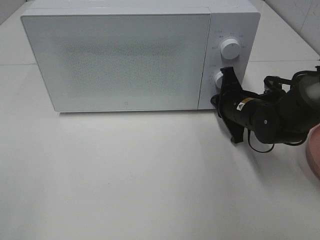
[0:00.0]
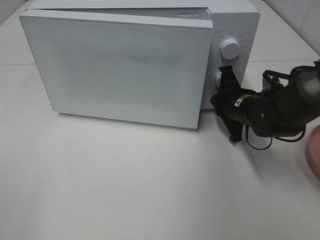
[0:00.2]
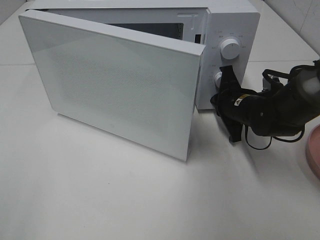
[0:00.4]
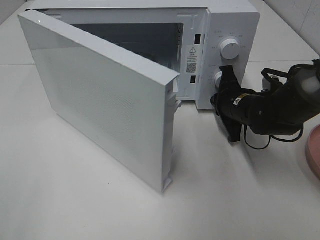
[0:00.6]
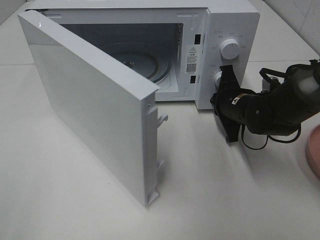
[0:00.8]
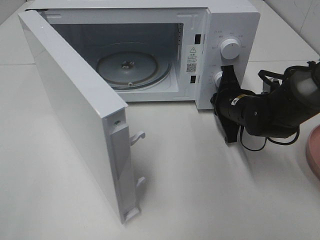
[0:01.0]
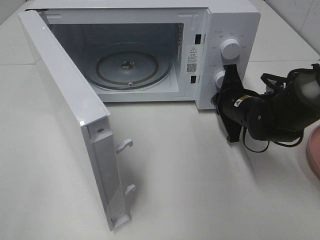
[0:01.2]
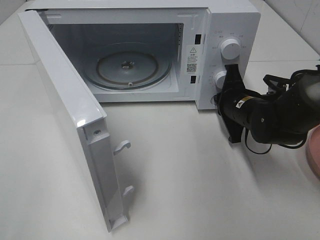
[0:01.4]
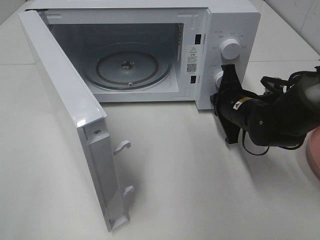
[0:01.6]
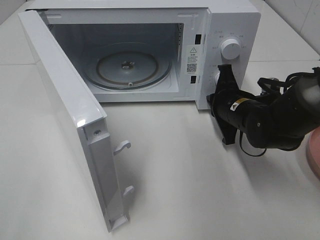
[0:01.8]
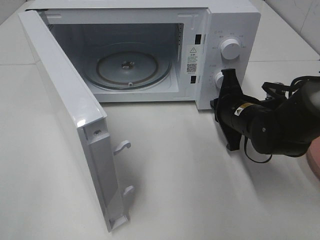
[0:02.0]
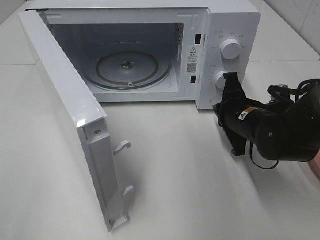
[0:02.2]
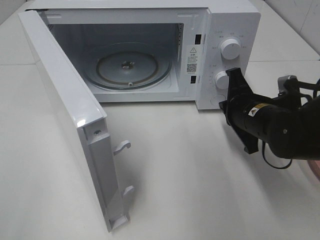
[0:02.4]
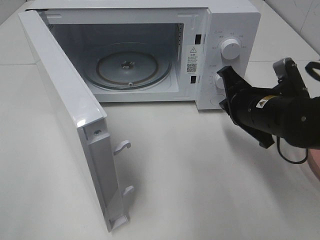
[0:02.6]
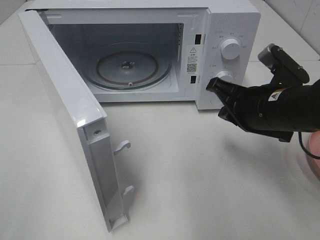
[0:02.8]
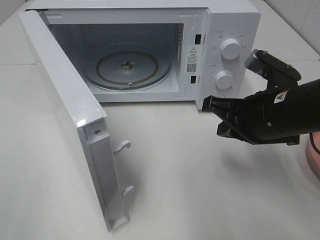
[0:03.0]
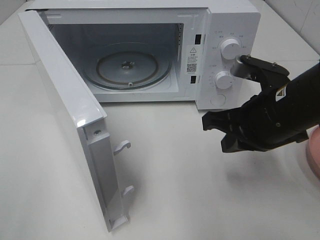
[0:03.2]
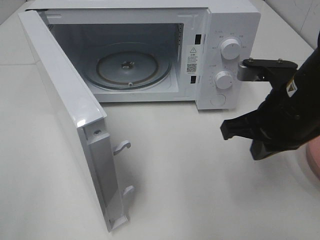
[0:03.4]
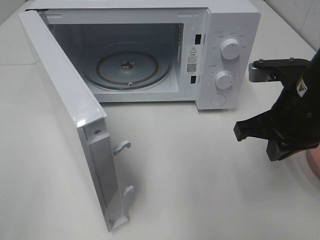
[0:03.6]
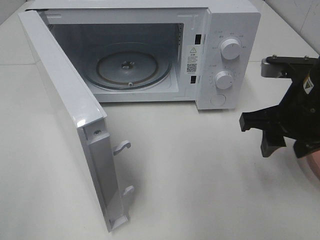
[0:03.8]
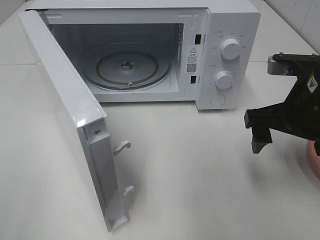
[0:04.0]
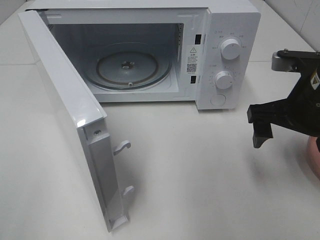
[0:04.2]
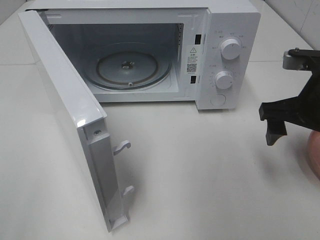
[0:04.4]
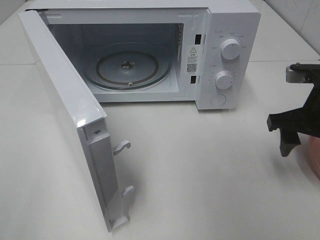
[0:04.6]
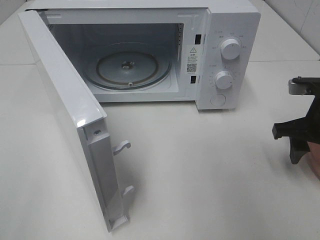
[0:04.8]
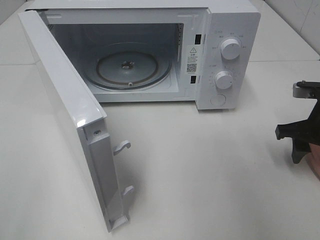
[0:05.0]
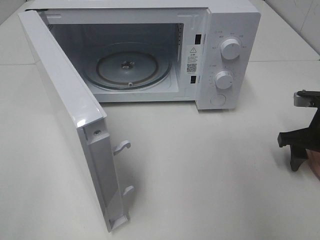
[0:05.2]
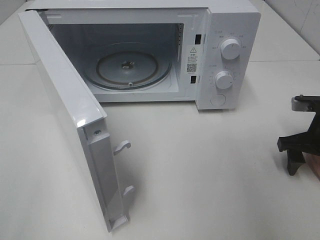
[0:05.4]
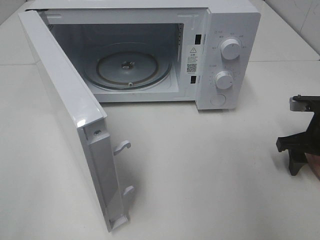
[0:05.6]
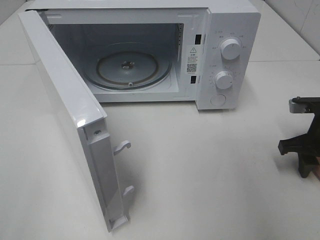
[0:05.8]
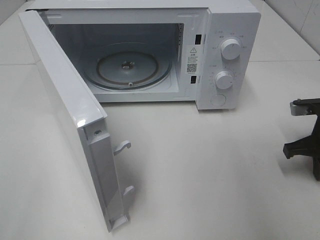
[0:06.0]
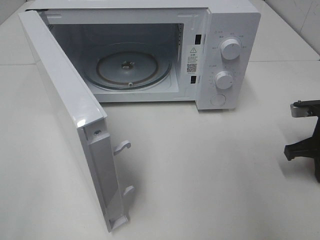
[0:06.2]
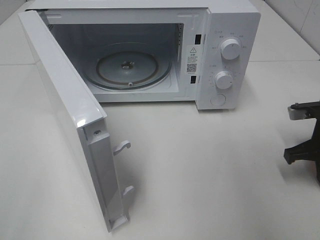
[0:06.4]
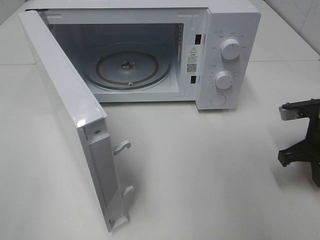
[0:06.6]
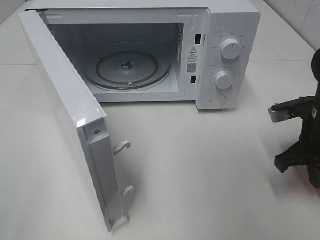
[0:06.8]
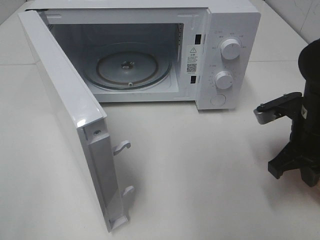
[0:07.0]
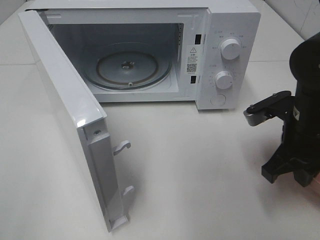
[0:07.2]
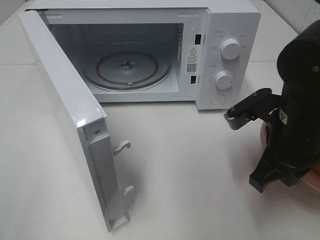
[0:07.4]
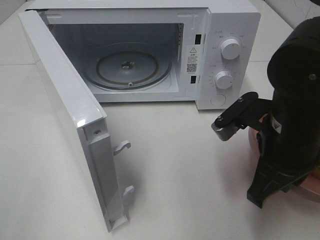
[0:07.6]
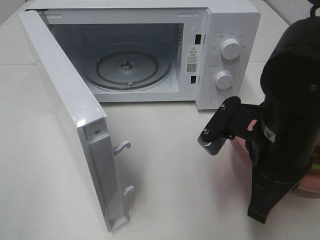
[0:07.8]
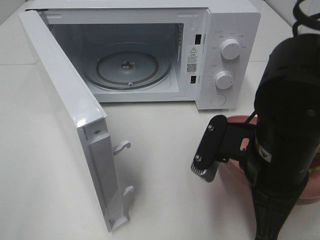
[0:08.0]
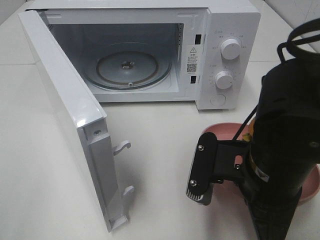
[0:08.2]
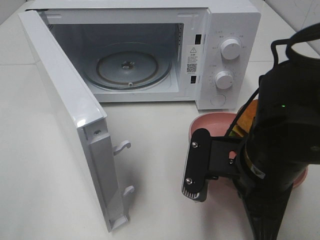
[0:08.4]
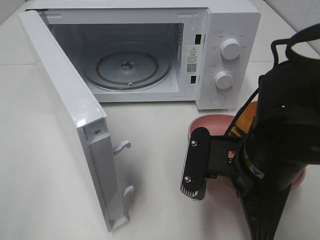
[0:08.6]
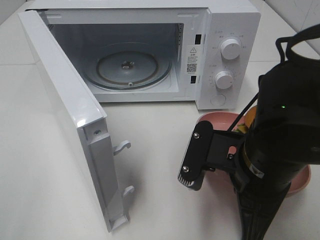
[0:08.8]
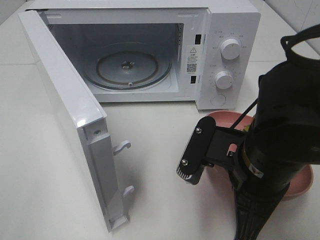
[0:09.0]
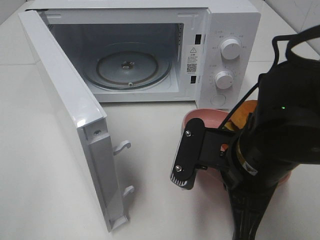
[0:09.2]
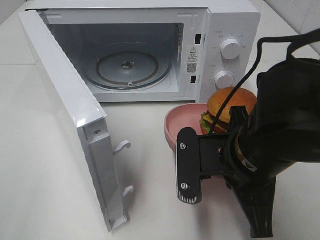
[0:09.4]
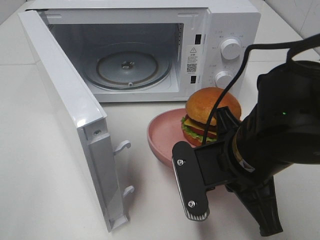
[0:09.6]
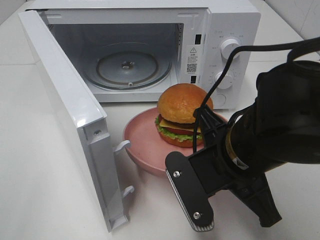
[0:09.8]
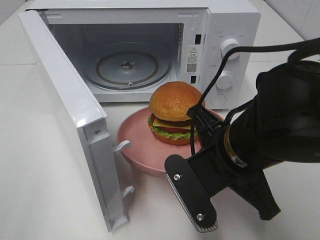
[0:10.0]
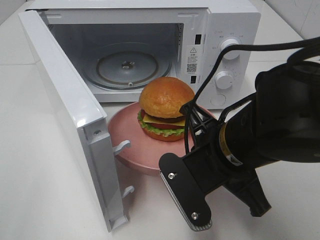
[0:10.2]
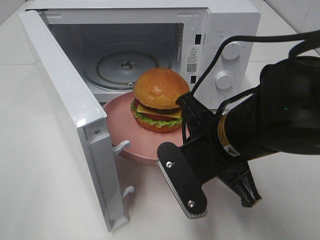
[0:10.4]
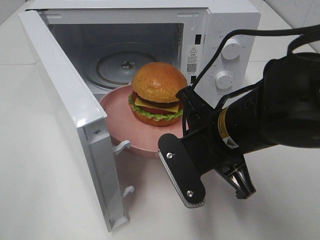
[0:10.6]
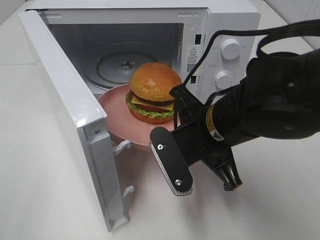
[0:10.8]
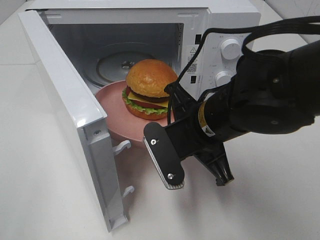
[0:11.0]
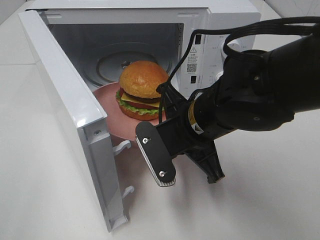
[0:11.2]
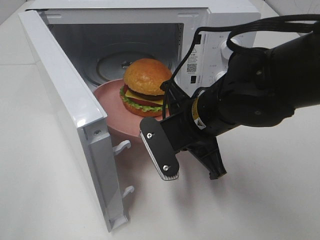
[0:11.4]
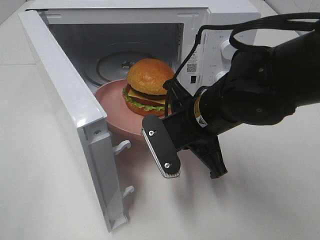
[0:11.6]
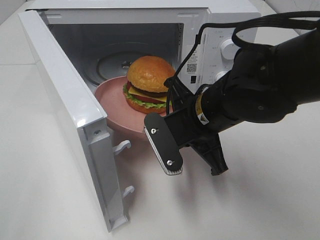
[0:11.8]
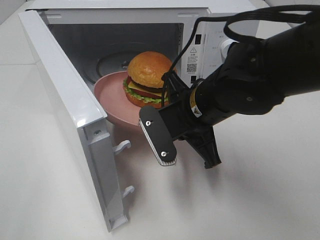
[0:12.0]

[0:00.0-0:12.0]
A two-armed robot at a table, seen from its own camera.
Task of the whole recording: Heat the burger.
Step, 0:01.8 to 0:06.2: Right hand: grab the plate with the hamburger.
0:01.6 to 0:03.0: The right gripper travels backward and upward by roughly 15 cm.
0:03.0 to 0:04.4: The right gripper travels to the right by some 5 cm, and opens up.
0:04.4 to 0:06.0: The right gripper heads downward and to the right, covering roughly 10 cm, and closes.
0:06.0 to 0:07.6: The right gripper heads to the left, backward and upward, covering approximately 20 cm.
0:07.6 to 0:09.0: The right gripper ends up about 5 cm from where it was.
0:10.4 to 0:12.0: The right gripper travels forward by approximately 5 cm.

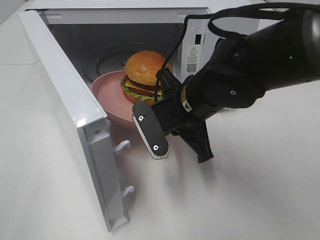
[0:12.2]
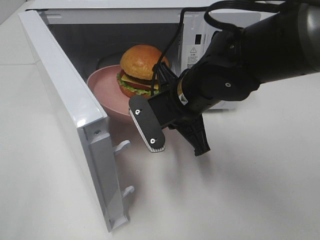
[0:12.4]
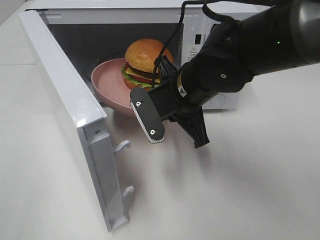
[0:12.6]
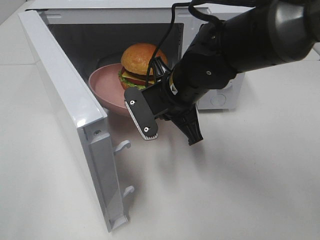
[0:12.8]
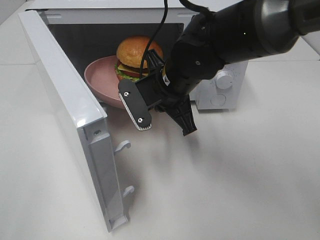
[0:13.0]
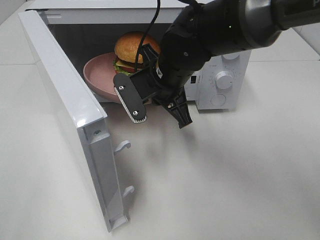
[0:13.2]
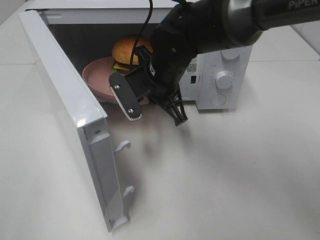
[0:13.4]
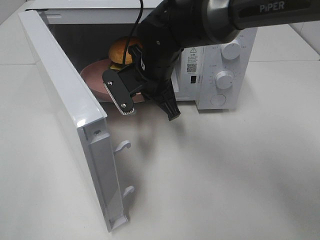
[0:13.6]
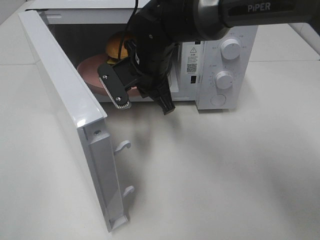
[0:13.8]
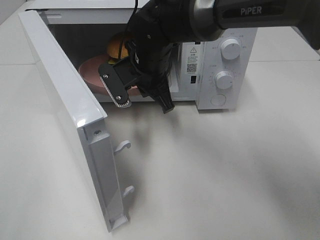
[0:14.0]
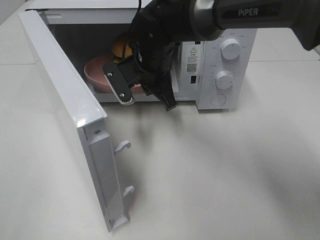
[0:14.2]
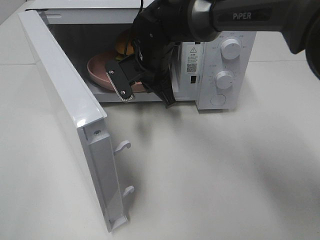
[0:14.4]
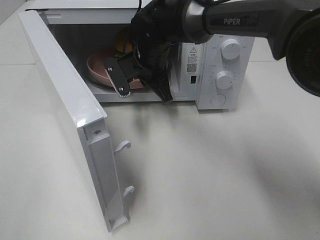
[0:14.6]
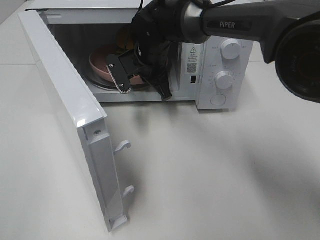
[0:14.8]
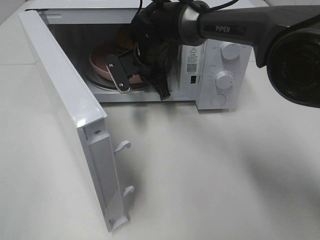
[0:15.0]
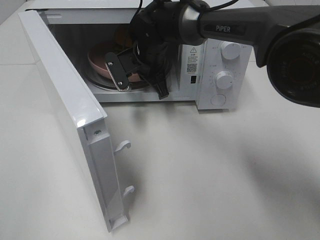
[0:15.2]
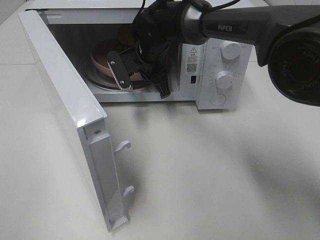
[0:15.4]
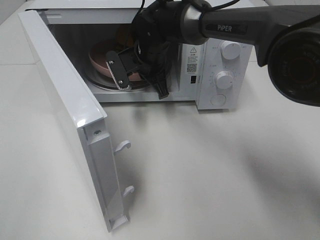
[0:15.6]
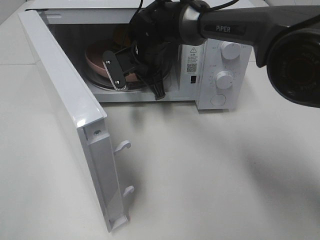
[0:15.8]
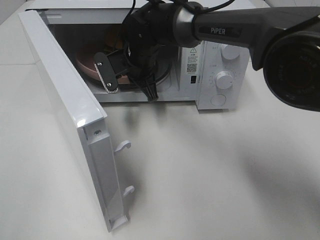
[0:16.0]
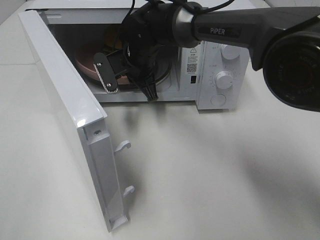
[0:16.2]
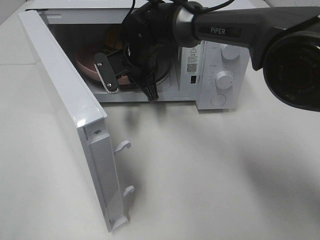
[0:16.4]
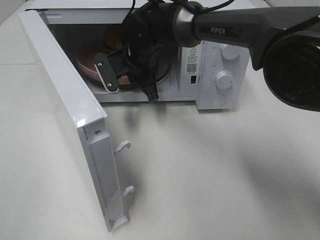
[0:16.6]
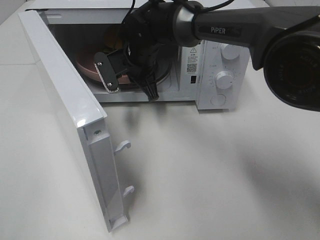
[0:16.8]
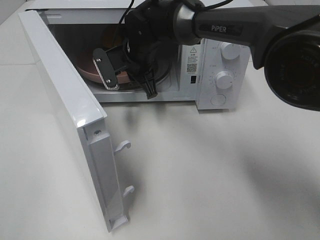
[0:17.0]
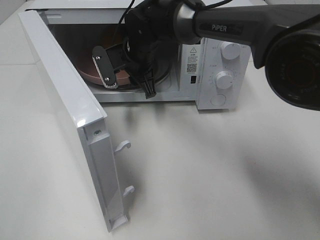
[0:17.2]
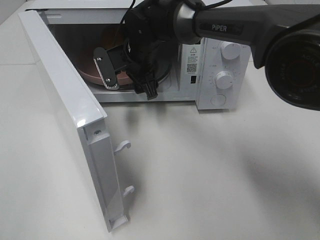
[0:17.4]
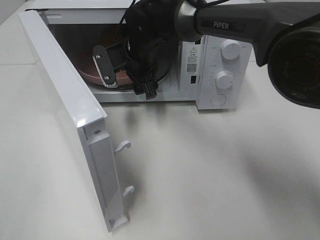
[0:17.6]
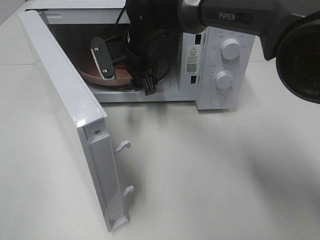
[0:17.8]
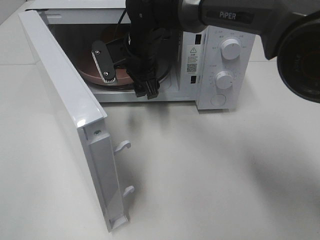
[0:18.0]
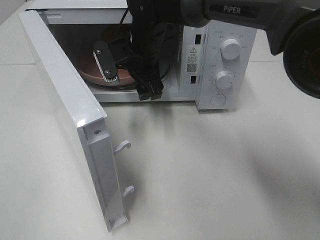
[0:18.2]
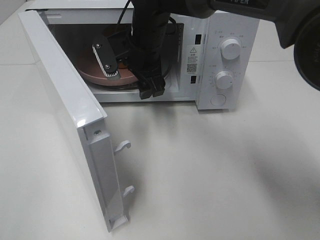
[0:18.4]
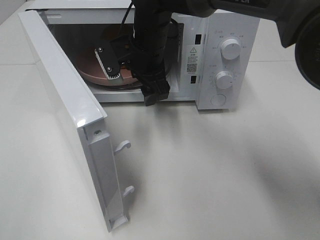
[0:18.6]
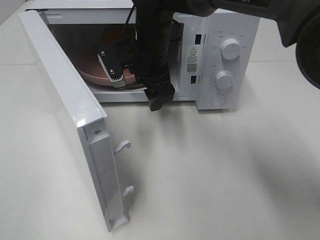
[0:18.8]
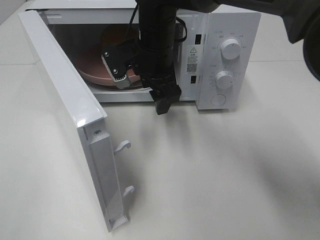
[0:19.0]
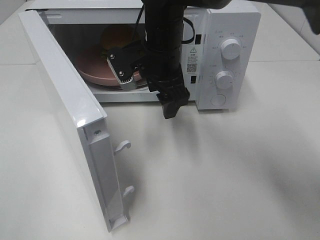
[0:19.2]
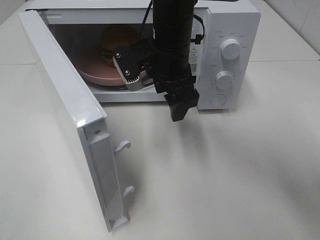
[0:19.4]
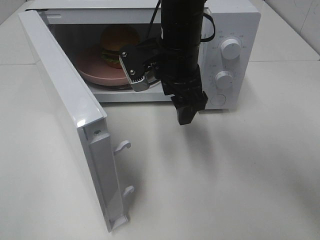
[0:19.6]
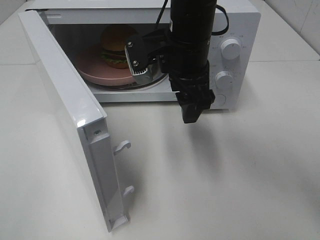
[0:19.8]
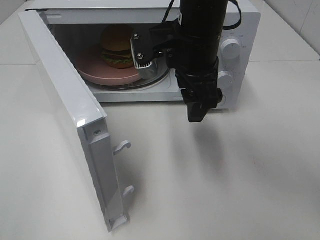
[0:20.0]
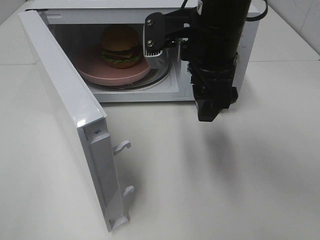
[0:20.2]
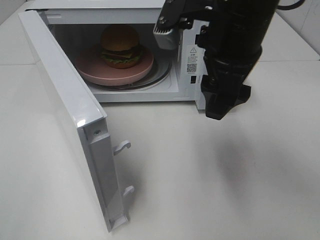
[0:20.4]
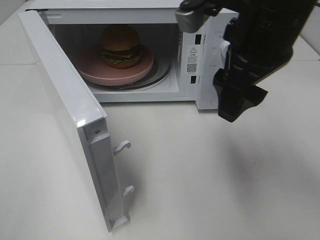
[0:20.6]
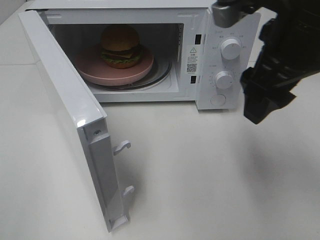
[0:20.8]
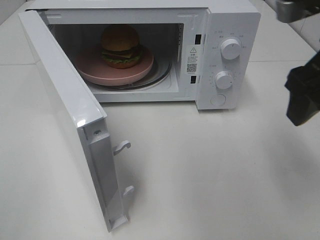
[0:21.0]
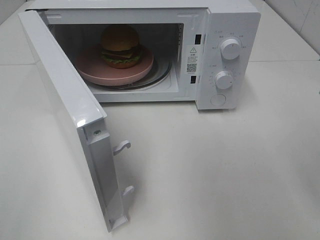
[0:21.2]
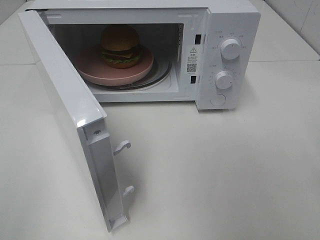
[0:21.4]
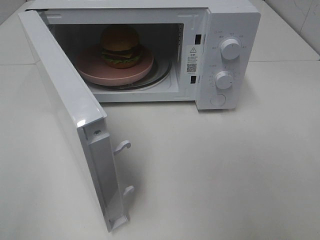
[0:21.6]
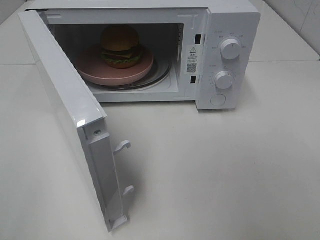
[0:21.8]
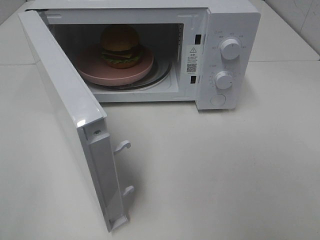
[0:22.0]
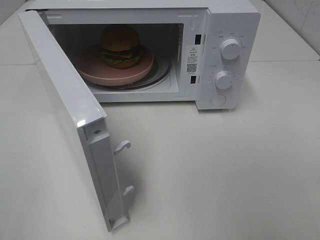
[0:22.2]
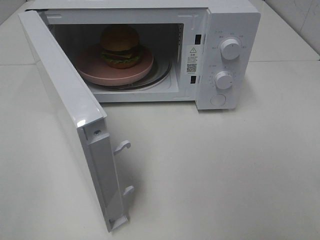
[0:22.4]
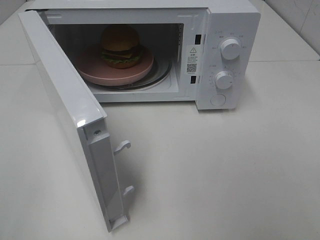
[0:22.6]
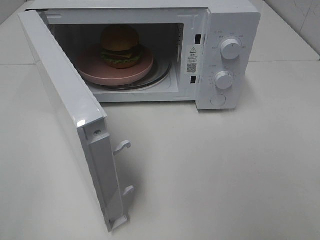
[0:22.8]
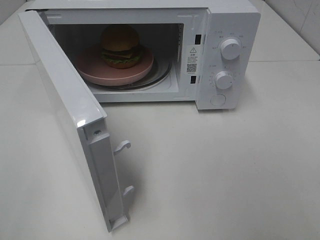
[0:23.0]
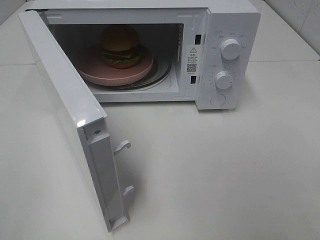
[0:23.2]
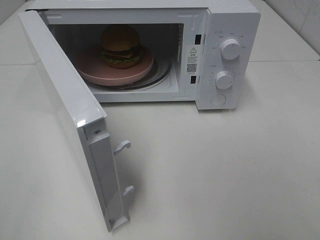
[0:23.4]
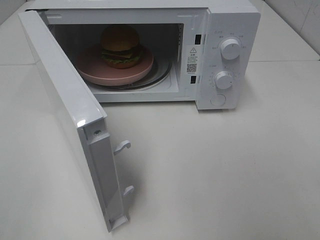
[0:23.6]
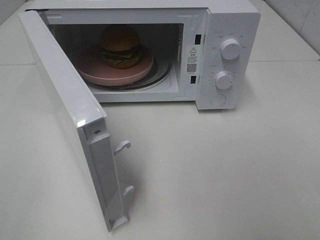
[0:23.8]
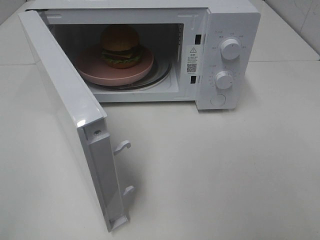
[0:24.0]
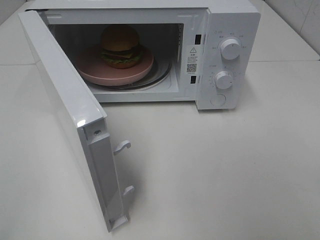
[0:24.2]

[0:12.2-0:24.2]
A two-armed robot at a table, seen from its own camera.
Task of the whole recording: Heat the burger.
Step, 0:12.2 to 0:17.0: Right hand: place the plate in the microwave.
0:12.2 to 0:13.8: The right gripper goes roughly 10 cm forward and to the left.
0:13.8 to 0:15.2: The right gripper moves forward, approximately 5 cm.
0:15.2 to 0:16.6: The grippers move only a little.
0:16.6 to 0:18.2: The right gripper opens up.
0:18.2 to 0:19.8: The right gripper travels backward, to the right and upward by some 10 cm.
0:19.8 to 0:21.2: The right gripper goes about 25 cm to the right and backward.
0:22.6 to 0:24.2: Both grippers stay about where they are.
